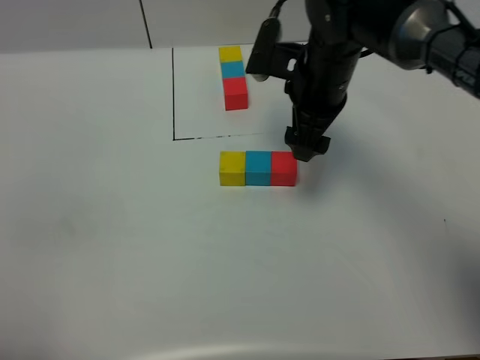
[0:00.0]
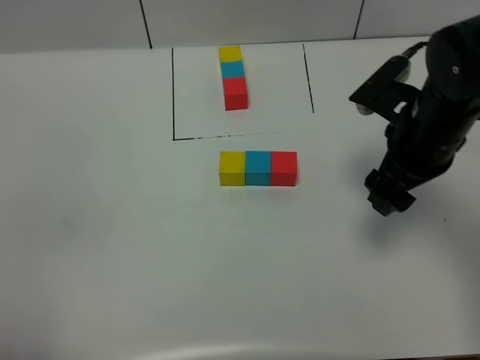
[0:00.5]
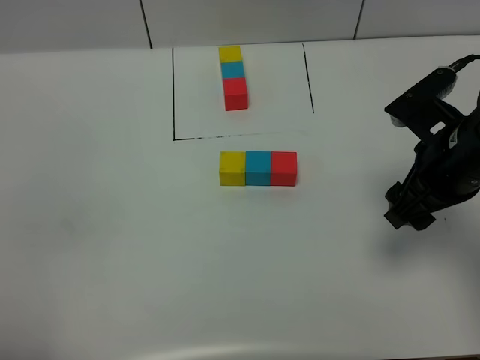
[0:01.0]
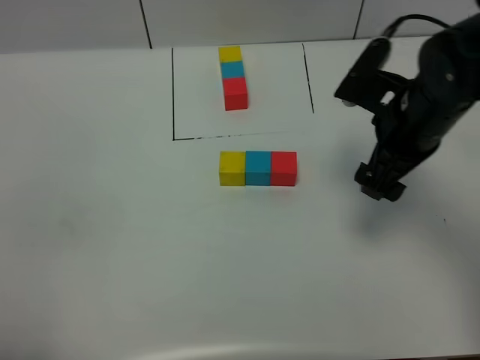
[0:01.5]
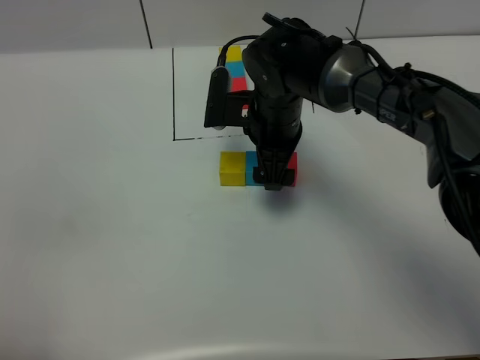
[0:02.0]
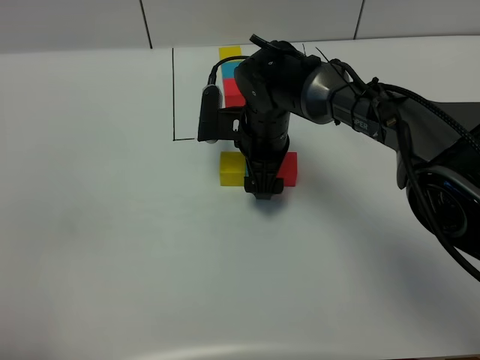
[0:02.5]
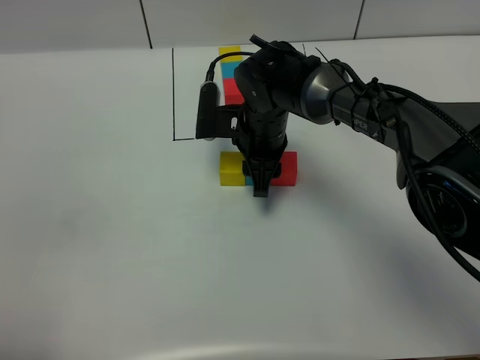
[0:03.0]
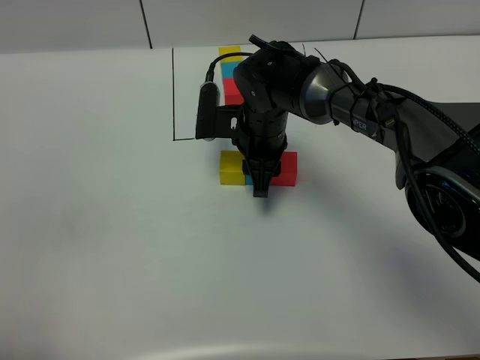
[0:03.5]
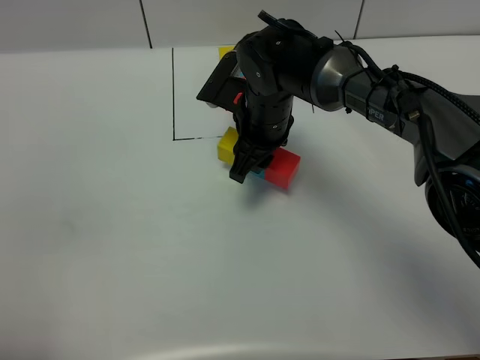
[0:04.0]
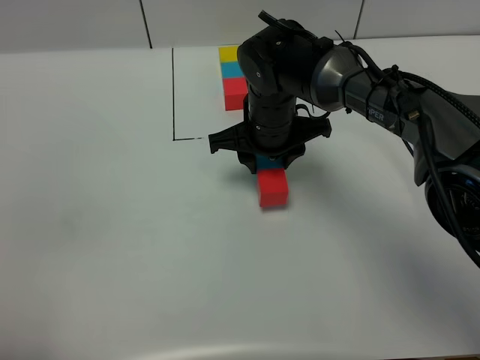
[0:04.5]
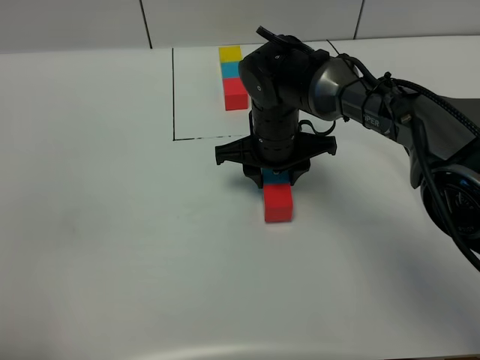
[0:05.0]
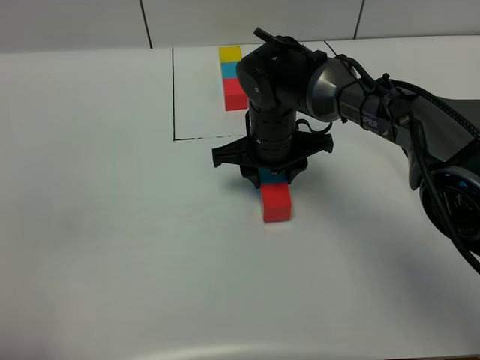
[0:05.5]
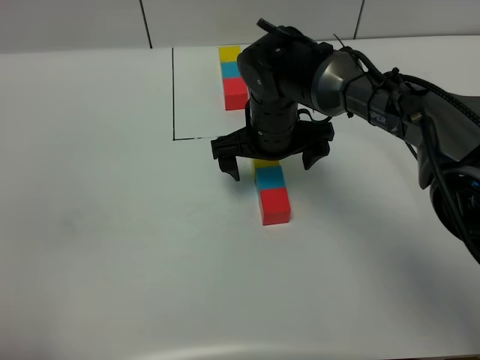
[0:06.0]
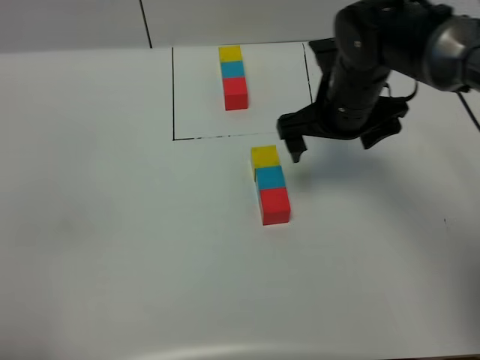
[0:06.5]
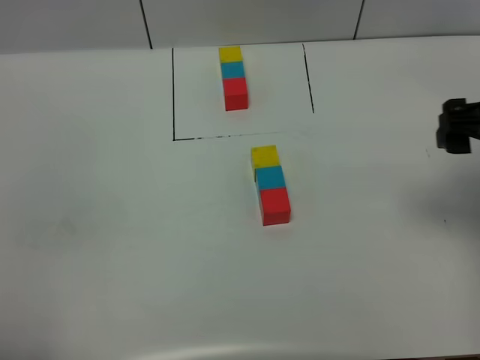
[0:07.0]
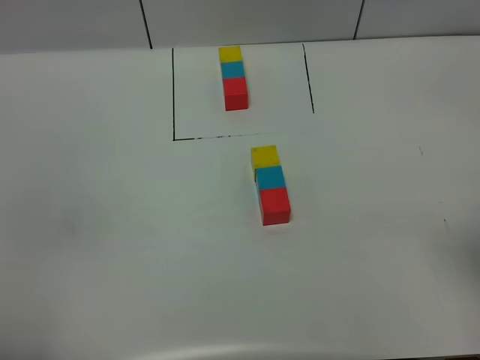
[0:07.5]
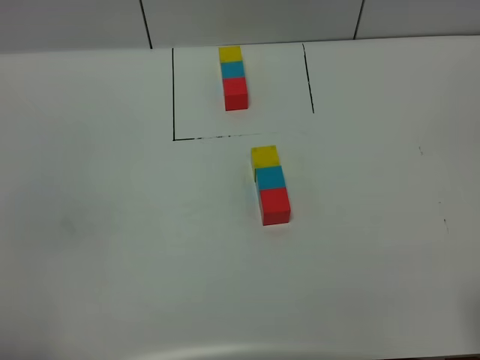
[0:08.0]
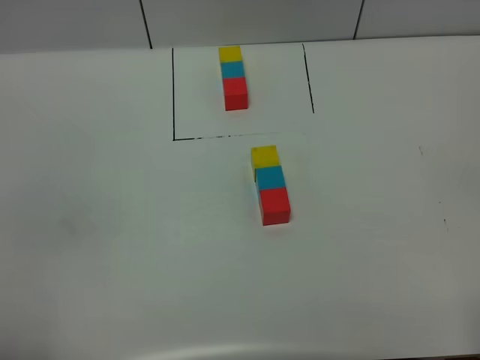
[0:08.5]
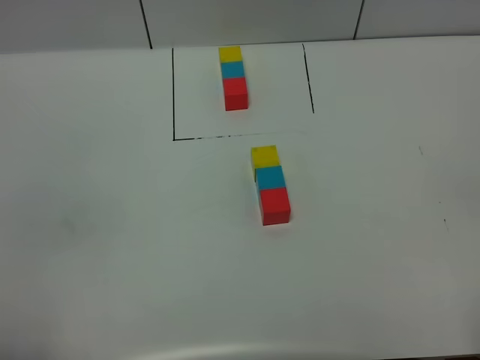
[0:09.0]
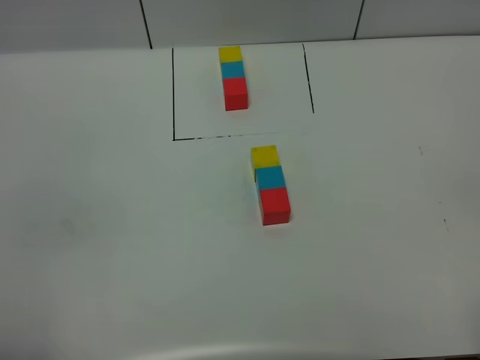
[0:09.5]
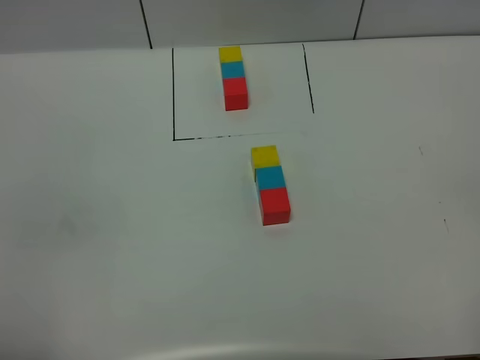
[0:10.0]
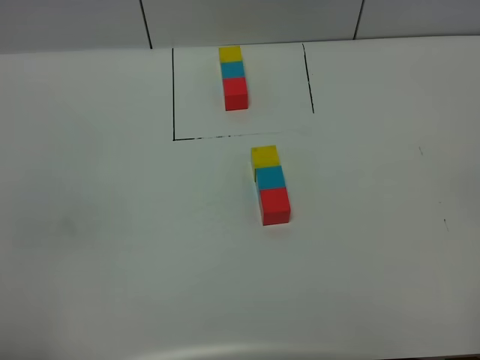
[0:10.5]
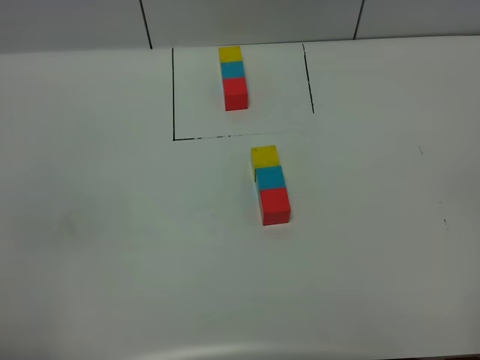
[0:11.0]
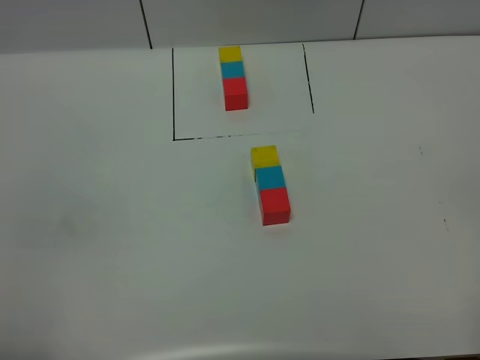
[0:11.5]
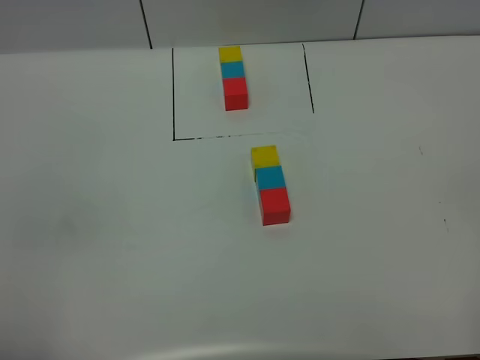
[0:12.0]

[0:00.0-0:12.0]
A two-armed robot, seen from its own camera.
Task of the whole recording: According to the building block template in front, assemble the scattered blocks together.
Step, 0:00.0 to 0:06.5: Adjust the pose of the building blocks.
0:00.0 to 0:02.0: The right gripper moves to the left and downward, roughly 10 cm.
0:02.0 to 0:04.0: The right gripper closes up.
0:04.0 to 0:06.0: The right gripper opens up.
0:06.0 to 0:08.0: The right gripper goes approximately 50 cm backward, to the right and upward.
0:10.0 to 0:12.0: Both grippers stay put.

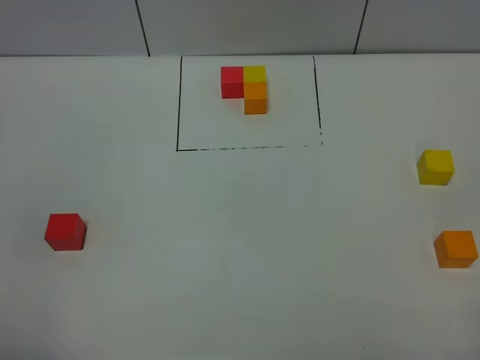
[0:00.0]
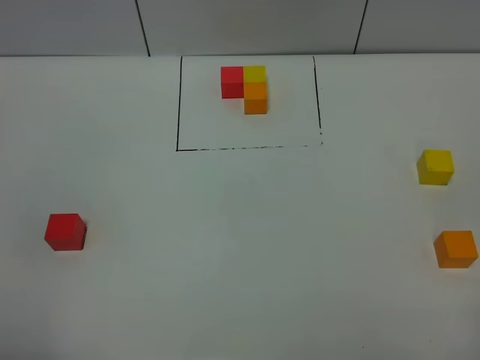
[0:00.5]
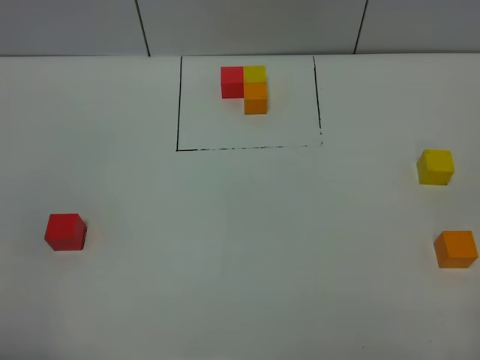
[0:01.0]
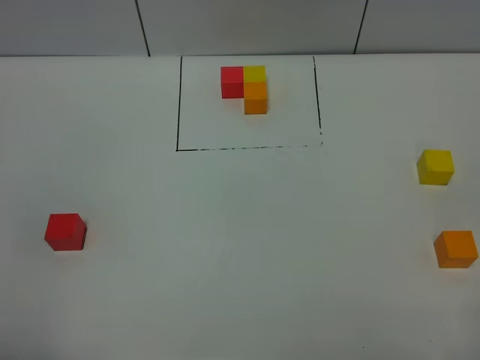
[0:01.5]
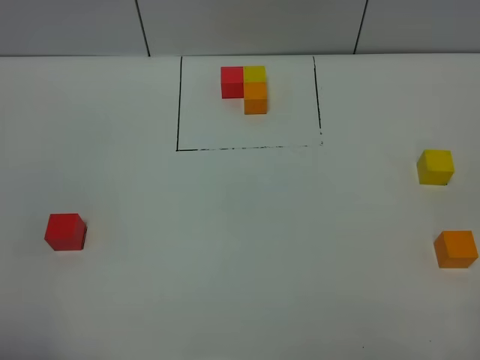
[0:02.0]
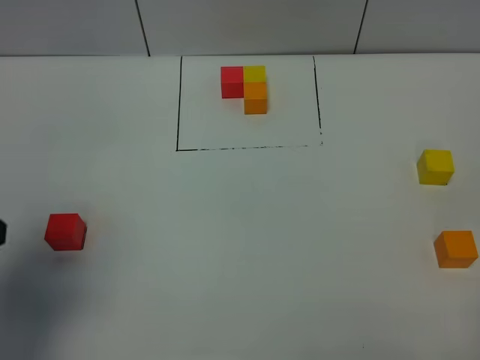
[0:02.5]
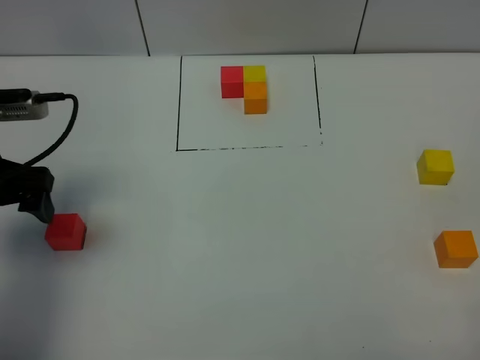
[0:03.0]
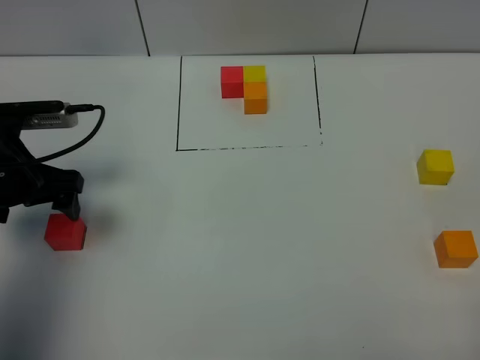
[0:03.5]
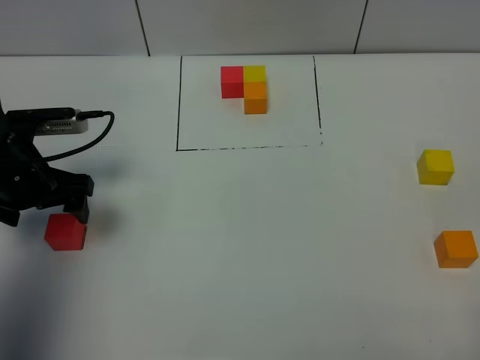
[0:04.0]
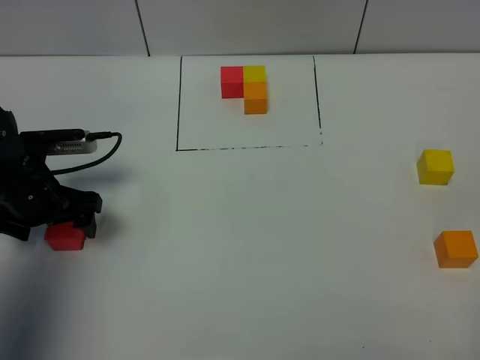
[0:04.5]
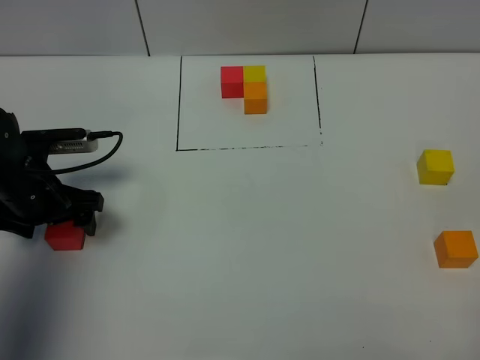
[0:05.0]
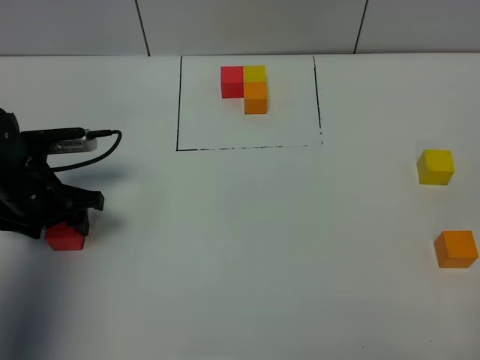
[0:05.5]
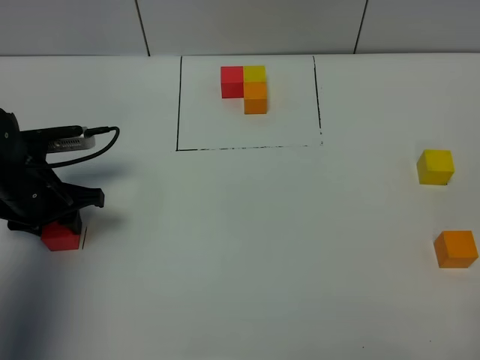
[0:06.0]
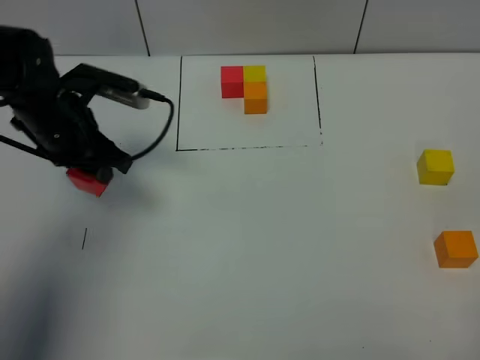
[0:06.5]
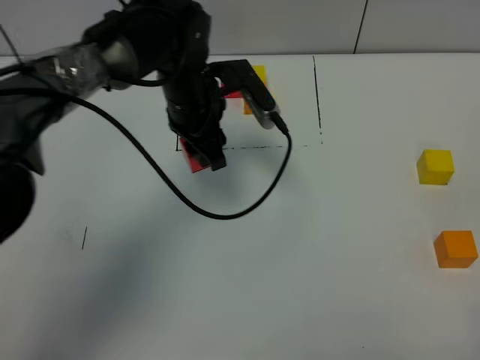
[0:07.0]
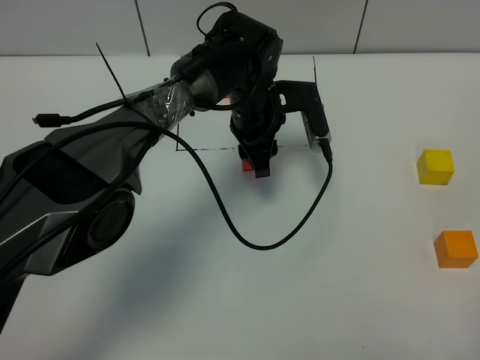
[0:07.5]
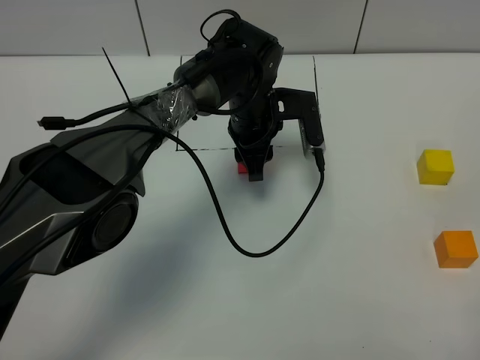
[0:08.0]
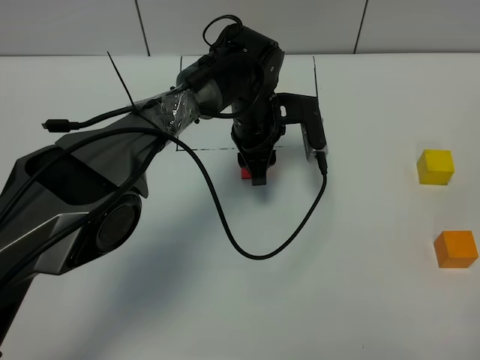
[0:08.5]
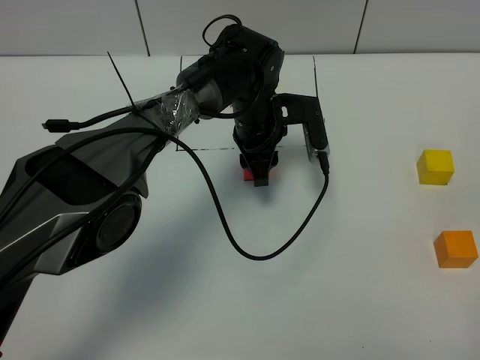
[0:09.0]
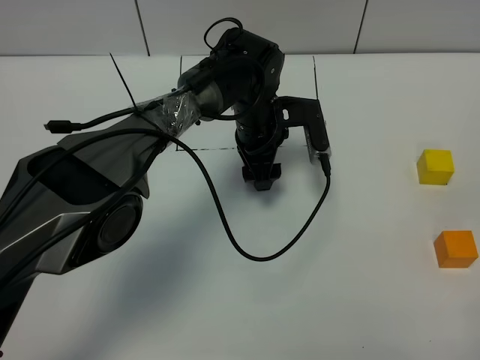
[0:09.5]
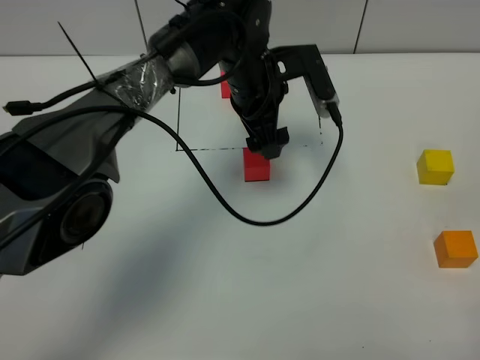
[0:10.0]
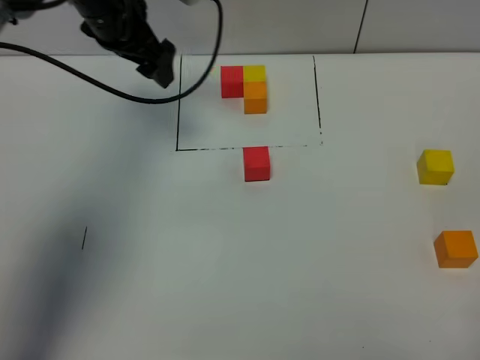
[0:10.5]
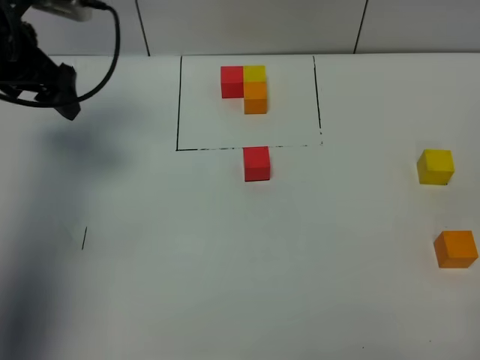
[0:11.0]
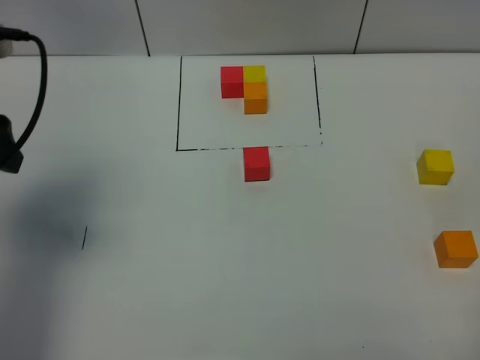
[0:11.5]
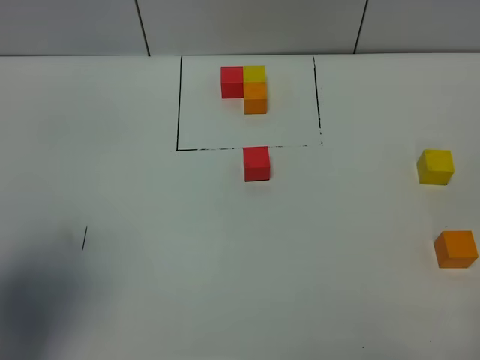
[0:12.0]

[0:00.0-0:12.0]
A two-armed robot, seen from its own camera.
Task of the whole recording: According to the building block template in front, assemble the scattered blocks together.
Step, 0:00.0 to 0:09.0: Put the red build block in the center of the table.
0:02.0 to 0:04.0: The left gripper shifts some 35 cm forward and downward.
0:04.0 to 0:06.0: The left gripper closes its fingers.
0:06.0 to 0:08.0: The left gripper is displaced to the right and forward by about 30 cm.
0:08.0 to 0:10.0: The left gripper is displaced upward by about 5 cm, and opens.
0:10.0 to 0:12.0: The left gripper is displaced backward, to the left and upward by approximately 40 cm.

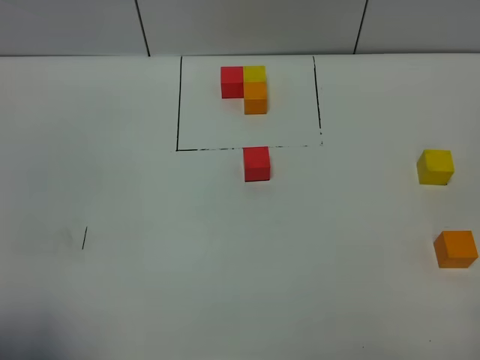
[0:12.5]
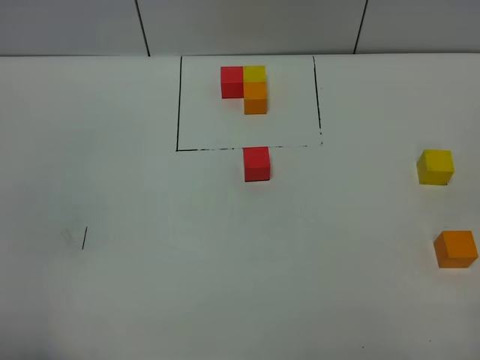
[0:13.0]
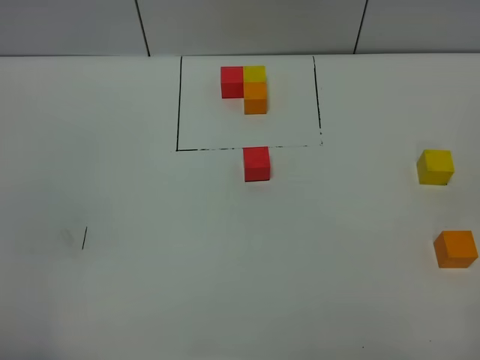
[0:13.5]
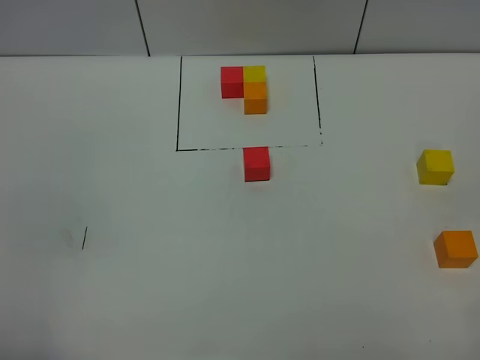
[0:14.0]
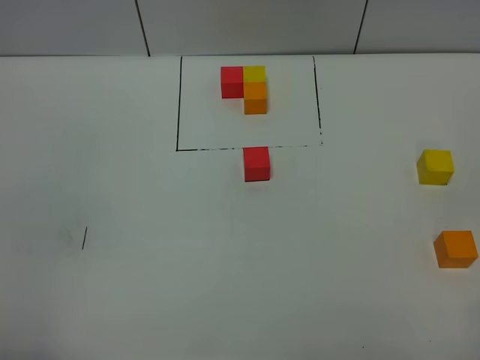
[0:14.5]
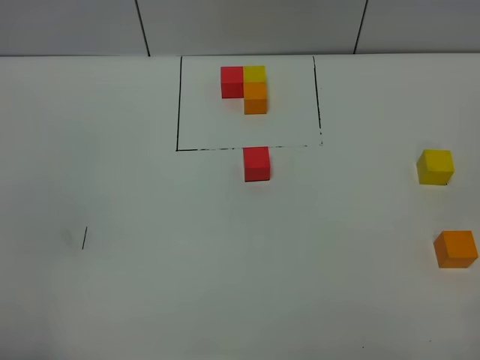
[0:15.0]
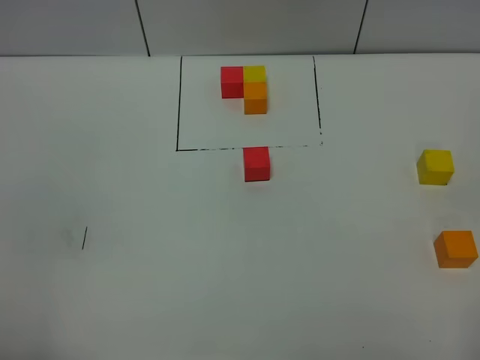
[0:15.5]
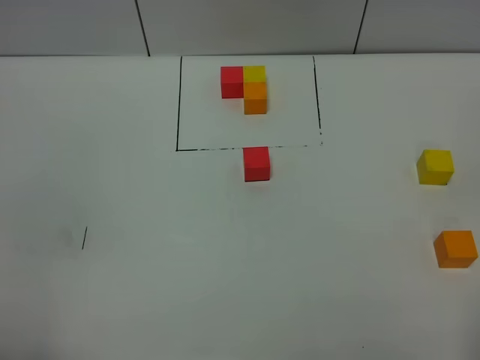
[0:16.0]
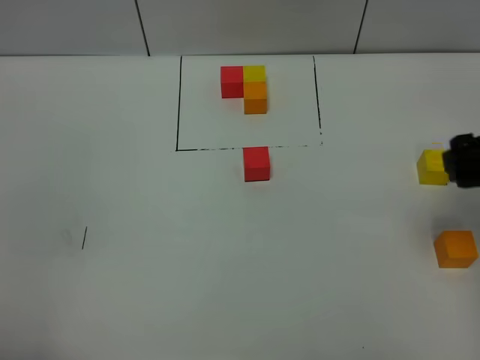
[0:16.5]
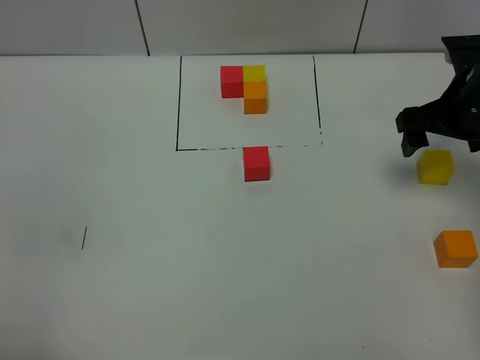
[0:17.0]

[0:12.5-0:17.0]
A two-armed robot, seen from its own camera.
Task of the whole recording: According to the building block template in front, assemble the scattered blocks together.
0:14.5 to 0:17.0: The right gripper moves forward, approximately 35 cm.
